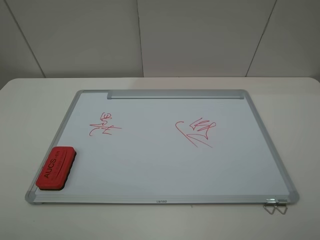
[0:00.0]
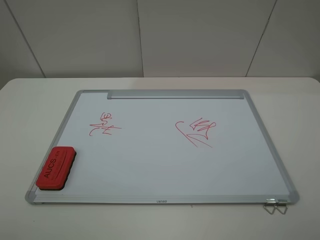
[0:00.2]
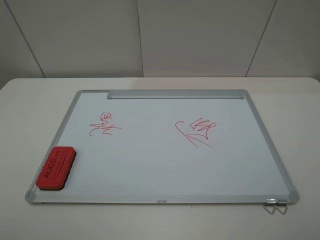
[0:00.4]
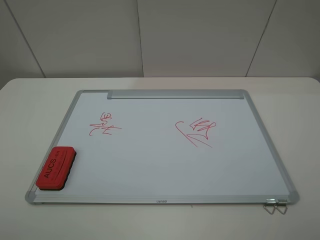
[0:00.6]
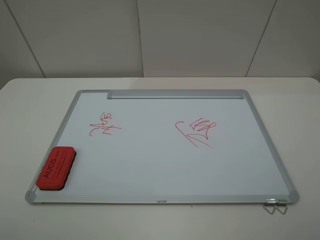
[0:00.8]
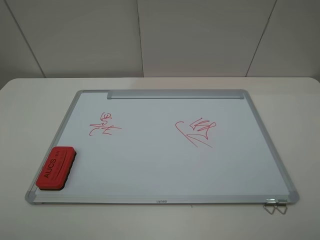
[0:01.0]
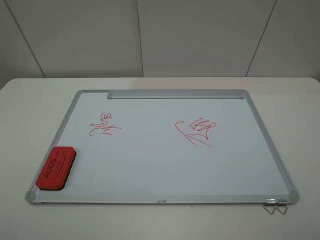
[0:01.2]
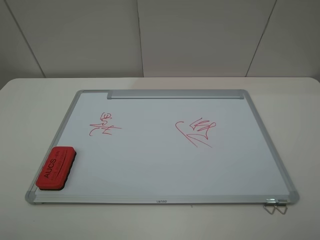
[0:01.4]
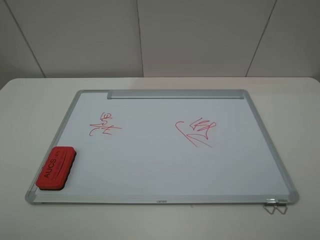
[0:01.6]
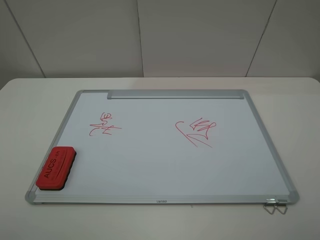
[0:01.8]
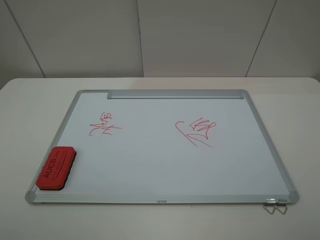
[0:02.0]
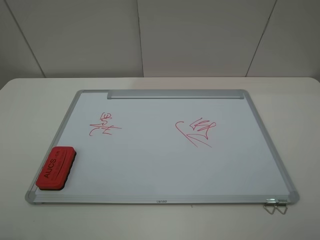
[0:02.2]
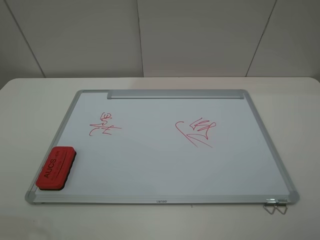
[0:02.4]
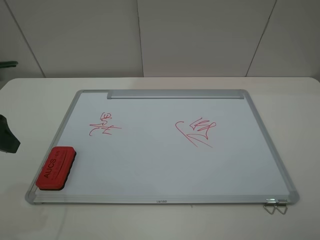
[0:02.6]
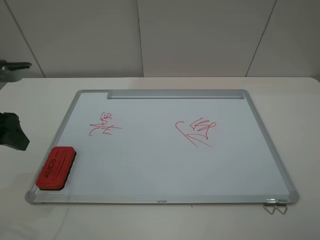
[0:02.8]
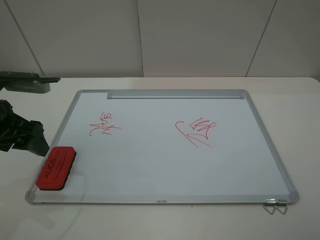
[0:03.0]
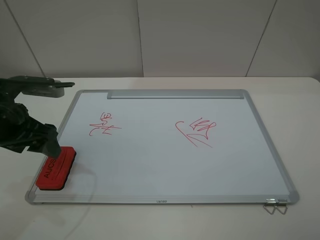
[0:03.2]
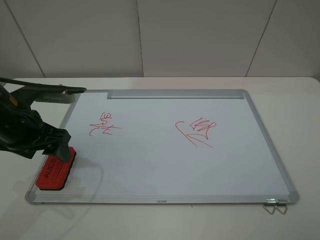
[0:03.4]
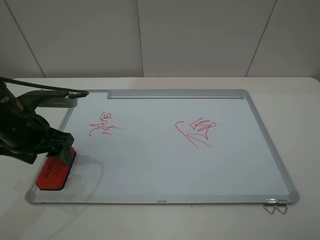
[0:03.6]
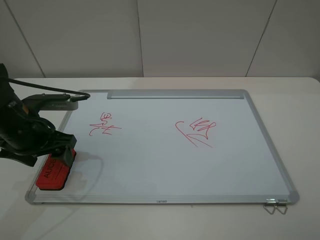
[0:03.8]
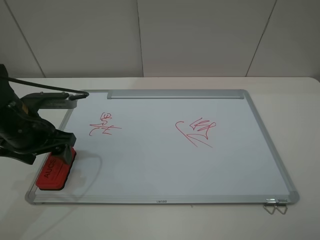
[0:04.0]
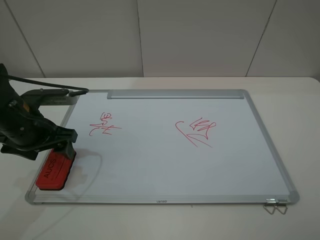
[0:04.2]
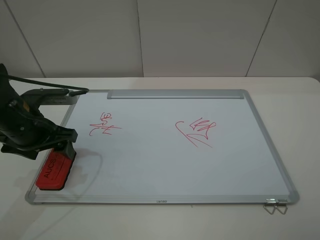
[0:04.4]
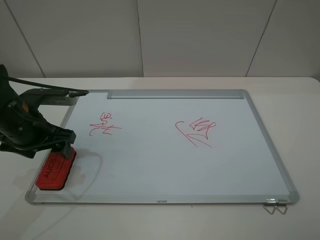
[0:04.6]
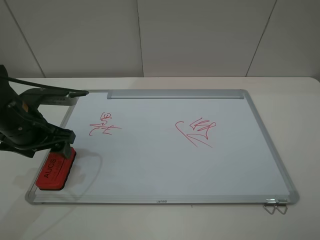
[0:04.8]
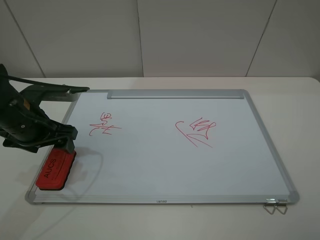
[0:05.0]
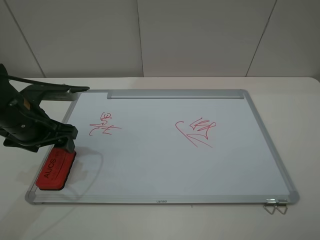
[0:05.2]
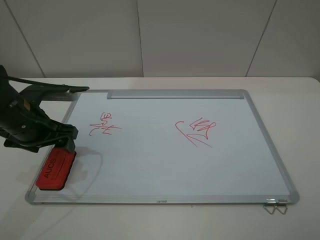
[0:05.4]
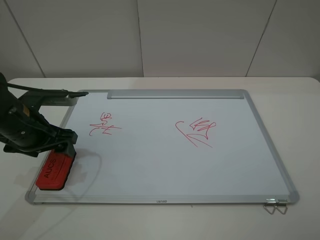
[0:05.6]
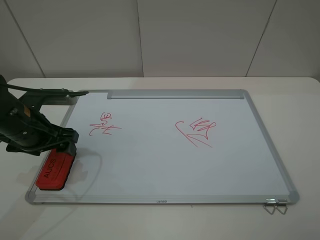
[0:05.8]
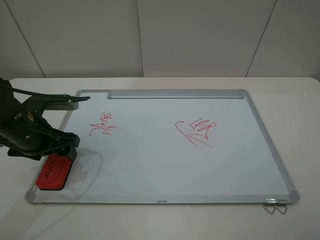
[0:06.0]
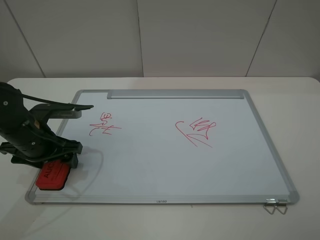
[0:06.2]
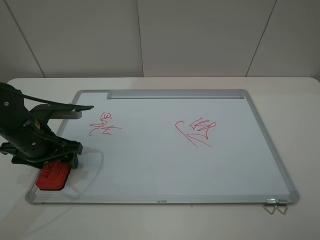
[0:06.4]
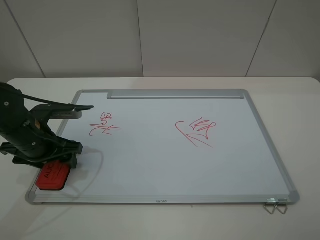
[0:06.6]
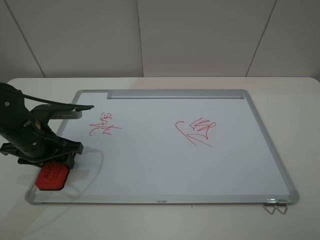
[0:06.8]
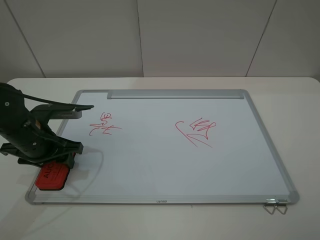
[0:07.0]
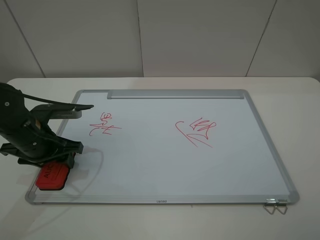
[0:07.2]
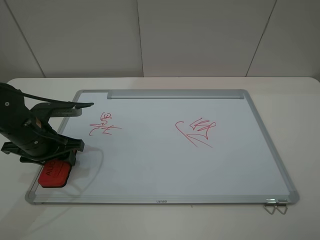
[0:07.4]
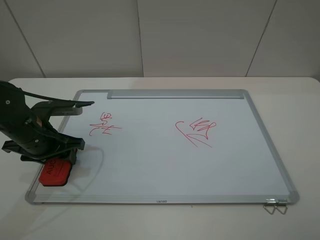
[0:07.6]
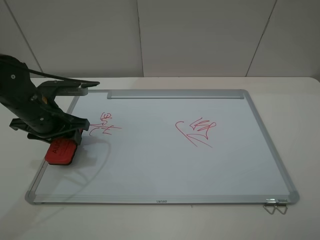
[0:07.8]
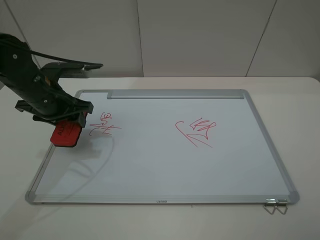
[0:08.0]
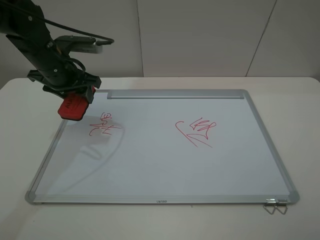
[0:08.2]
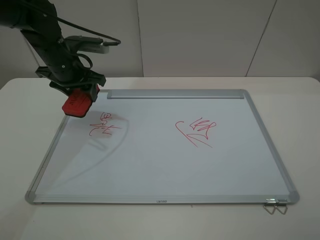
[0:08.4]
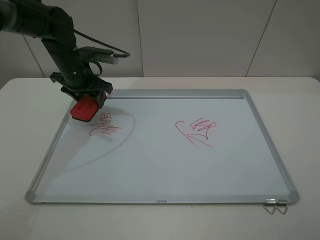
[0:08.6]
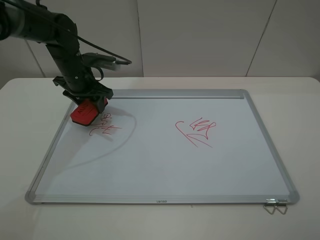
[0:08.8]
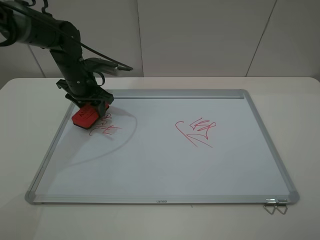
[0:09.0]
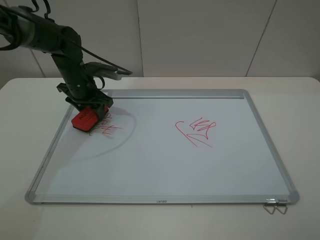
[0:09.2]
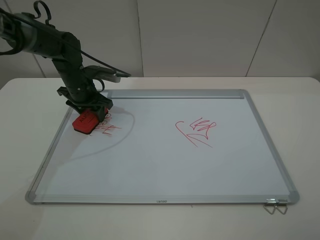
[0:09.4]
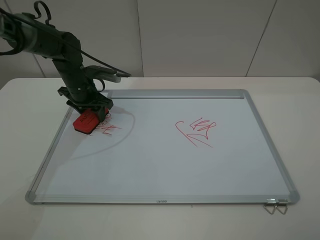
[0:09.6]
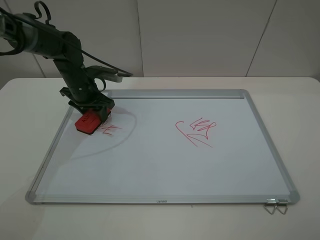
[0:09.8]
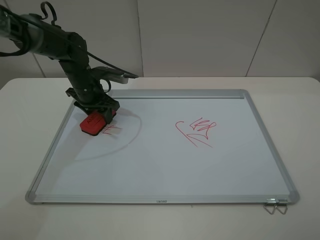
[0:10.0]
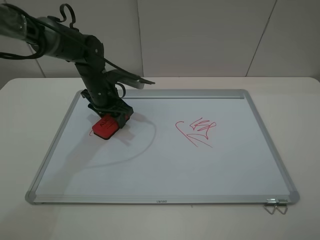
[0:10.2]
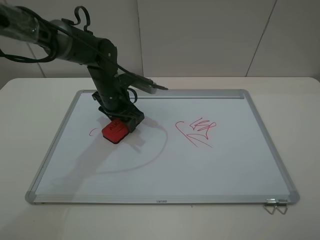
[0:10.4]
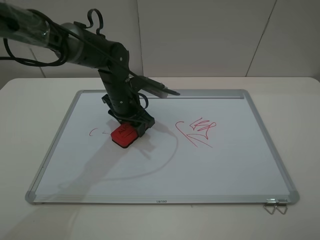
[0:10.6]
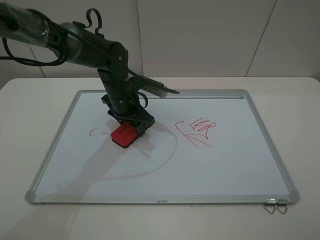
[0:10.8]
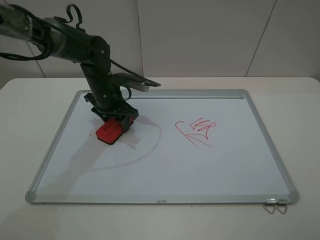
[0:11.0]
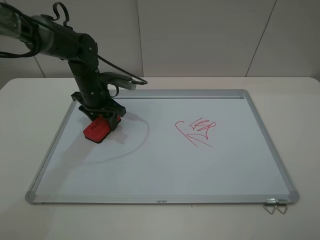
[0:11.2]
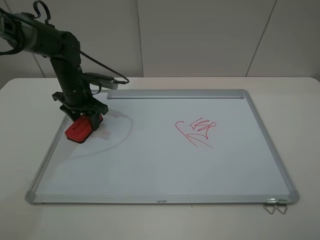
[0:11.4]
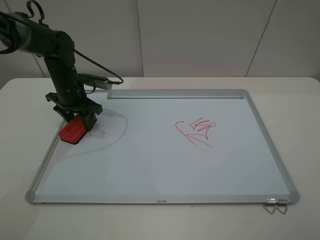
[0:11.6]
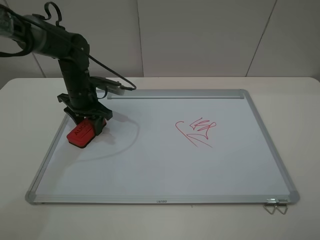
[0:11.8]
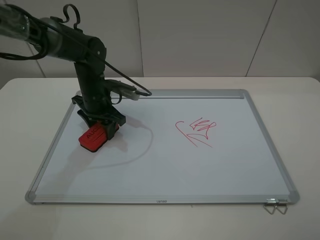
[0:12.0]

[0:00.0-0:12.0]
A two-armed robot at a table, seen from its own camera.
Step, 0:00.0 to 0:06.8: Grasp the eraser with the left gripper.
0:00.0 to 0:01.6: The two grippers keep their place.
0:01.6 to 0:03.0: The left gripper travels forward by some 20 cm.
0:03.0 to 0:04.4: The left gripper moves downward, roughly 5 cm.
0:04.4 to 0:06.0: There are only small adjustments of the grippers.
0:06.0 to 0:07.6: The left gripper closes up.
0:07.6 to 0:09.0: The left gripper heads forward, covering approximately 15 cm.
0:09.0 to 0:10.4: The left gripper heads to the right, covering some 10 cm.
0:10.4 to 0:12.0: The left gripper goes to the left and returns, approximately 10 cm each way.

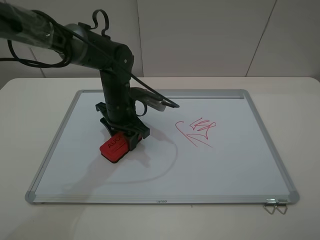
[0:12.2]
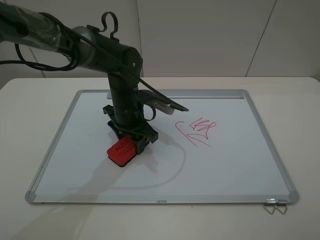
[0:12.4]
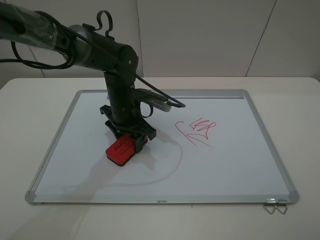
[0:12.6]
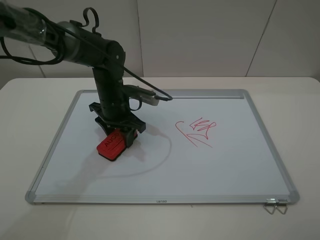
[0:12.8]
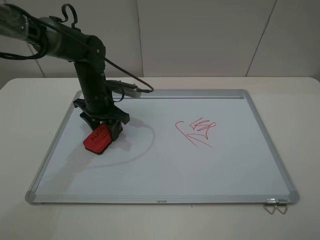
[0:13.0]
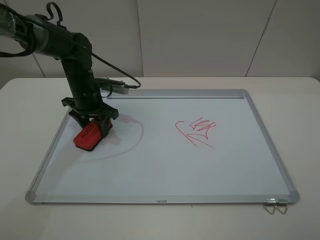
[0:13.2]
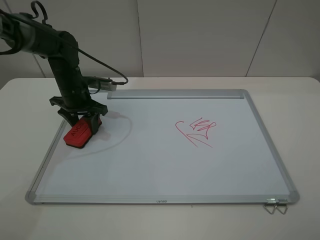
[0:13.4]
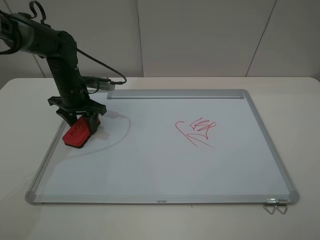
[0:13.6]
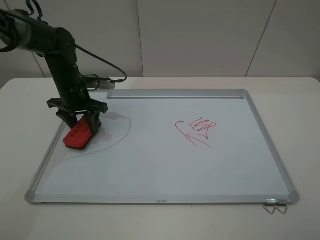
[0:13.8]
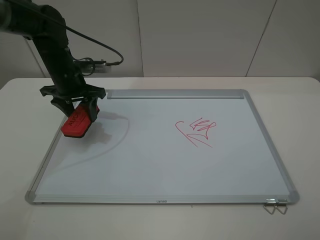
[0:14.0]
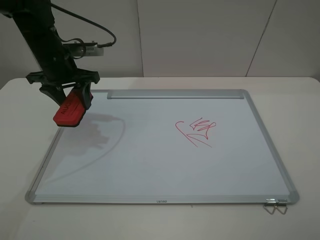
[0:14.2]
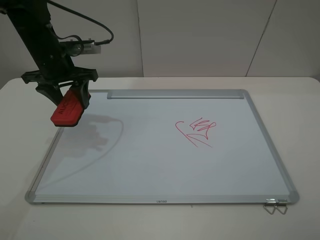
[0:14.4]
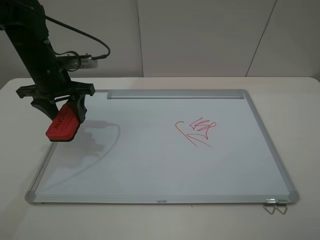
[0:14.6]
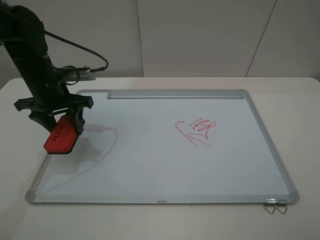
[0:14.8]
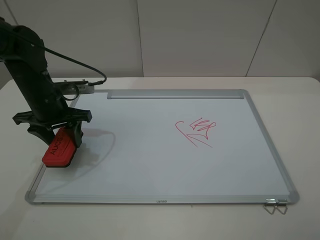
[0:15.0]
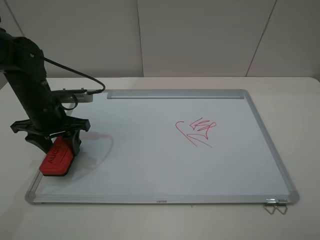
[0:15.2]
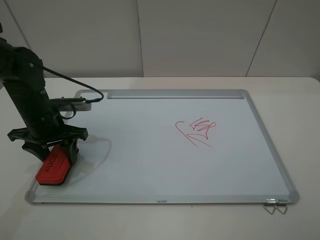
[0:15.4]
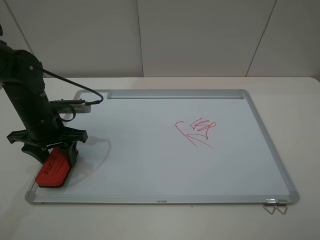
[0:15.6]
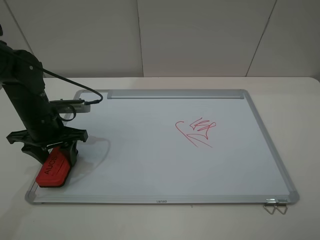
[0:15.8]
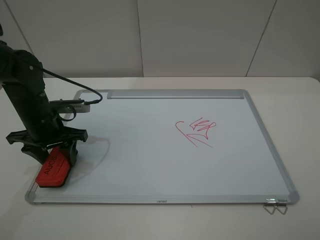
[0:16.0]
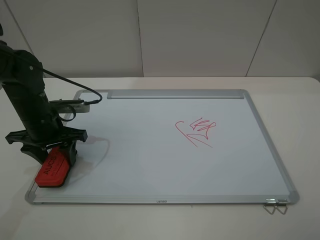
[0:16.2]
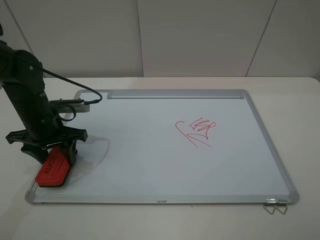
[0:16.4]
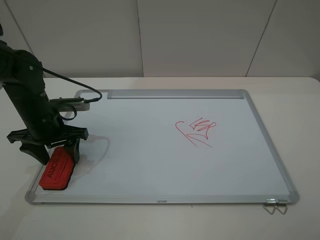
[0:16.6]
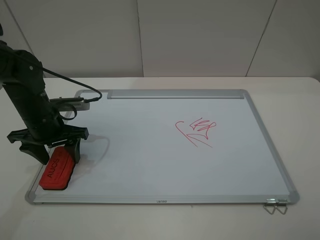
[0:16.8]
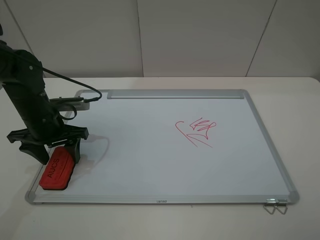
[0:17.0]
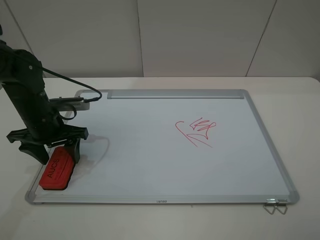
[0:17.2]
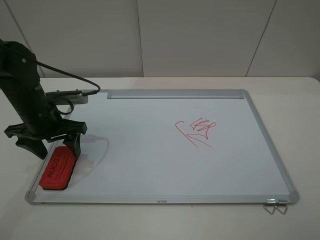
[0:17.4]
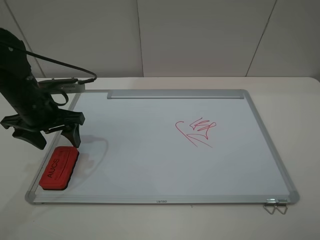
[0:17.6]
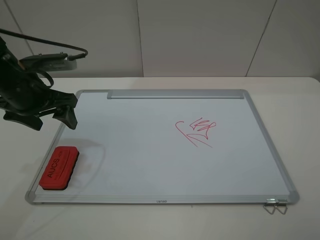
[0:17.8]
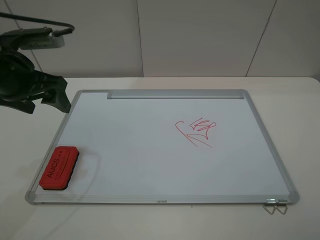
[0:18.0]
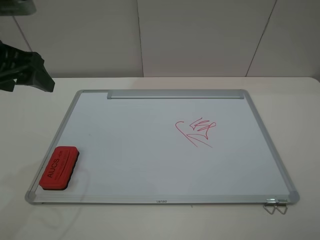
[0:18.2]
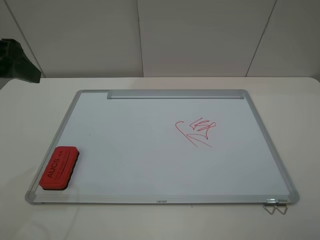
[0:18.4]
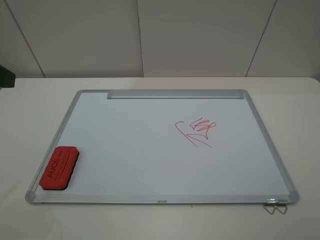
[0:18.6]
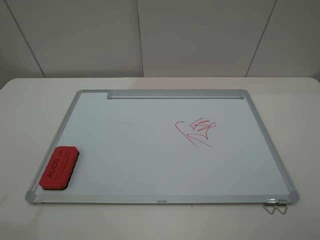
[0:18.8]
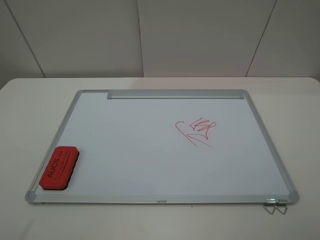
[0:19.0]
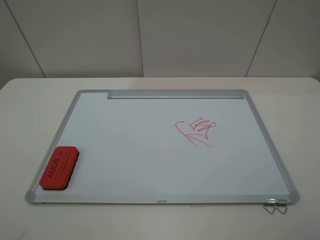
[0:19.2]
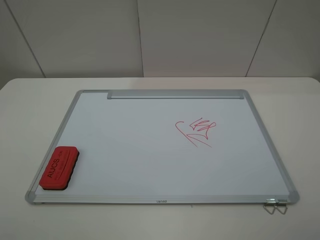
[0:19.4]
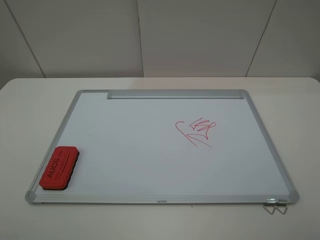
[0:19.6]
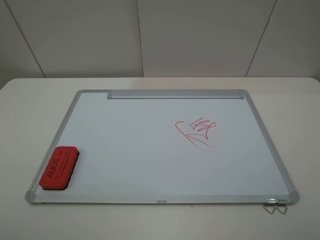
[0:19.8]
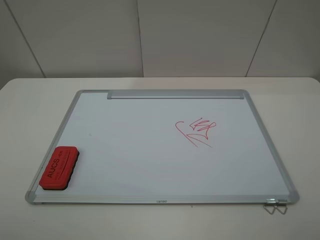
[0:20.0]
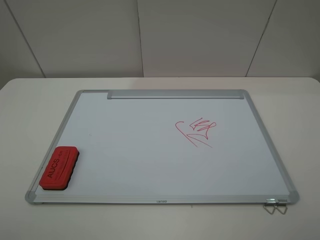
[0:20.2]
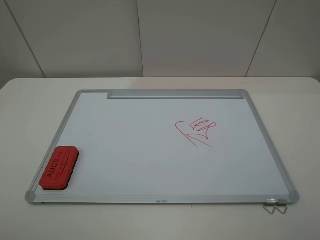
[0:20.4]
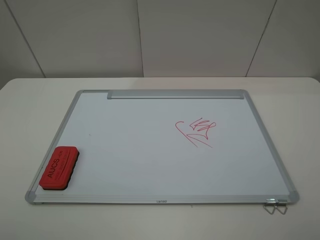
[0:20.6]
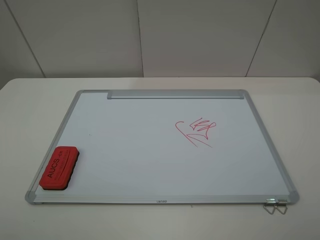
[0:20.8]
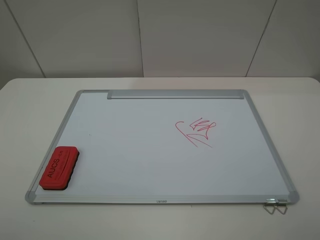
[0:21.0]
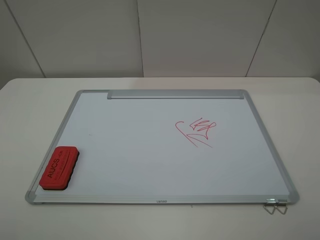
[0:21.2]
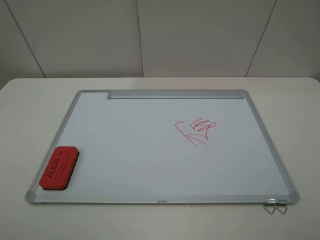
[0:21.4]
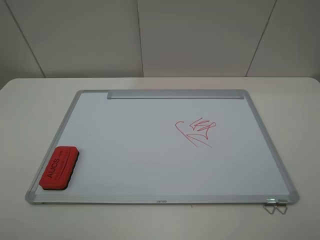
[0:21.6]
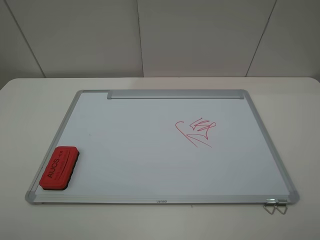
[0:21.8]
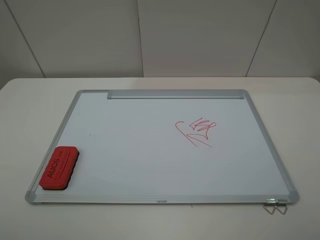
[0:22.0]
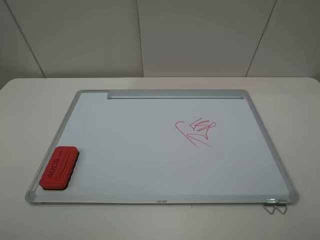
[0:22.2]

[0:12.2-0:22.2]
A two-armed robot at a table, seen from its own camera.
Step, 0:14.0 to 0:17.6: Place the eraser with the left gripper.
0:12.2 to 0:13.6: The left gripper heads to the left and forward, covering about 15 cm.
0:13.6 to 0:15.0: The left gripper is displaced backward by about 10 cm.
0:15.0 to 0:16.4: The grippers stay close to where they were, moving slightly.
0:16.4 to 0:18.0: The left gripper goes approximately 15 cm upward, and opens.
0:18.0 to 0:19.4: The left gripper is displaced backward by roughly 20 cm.
